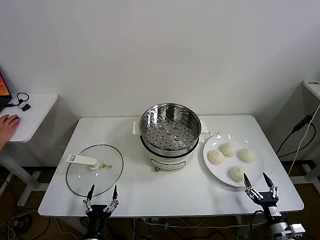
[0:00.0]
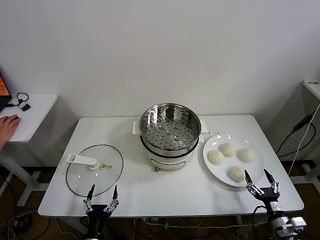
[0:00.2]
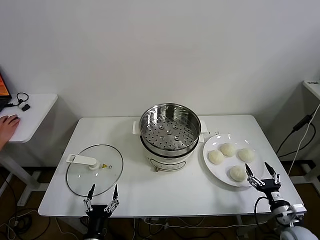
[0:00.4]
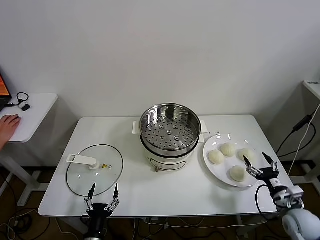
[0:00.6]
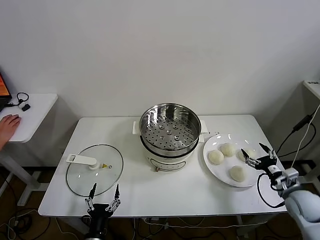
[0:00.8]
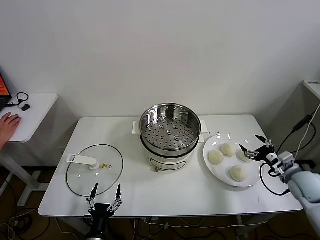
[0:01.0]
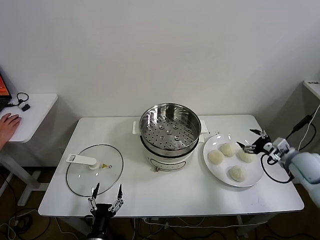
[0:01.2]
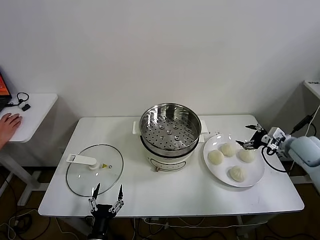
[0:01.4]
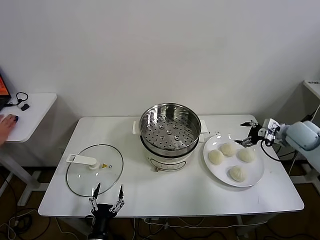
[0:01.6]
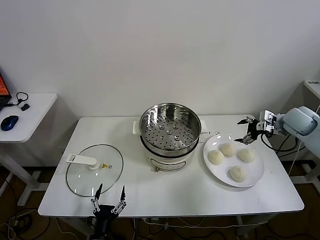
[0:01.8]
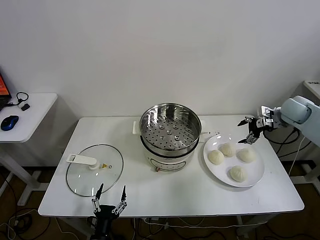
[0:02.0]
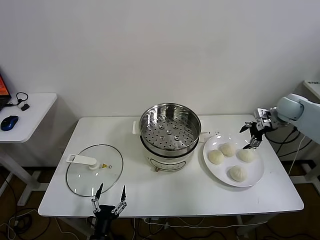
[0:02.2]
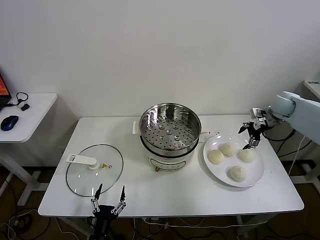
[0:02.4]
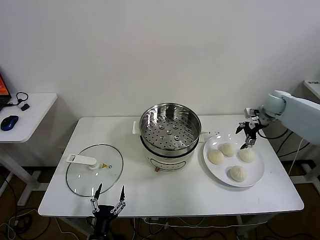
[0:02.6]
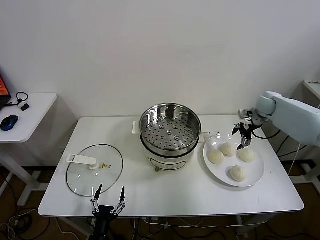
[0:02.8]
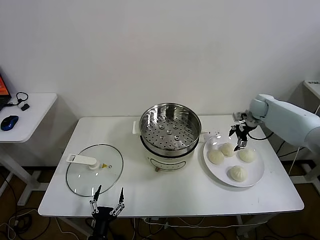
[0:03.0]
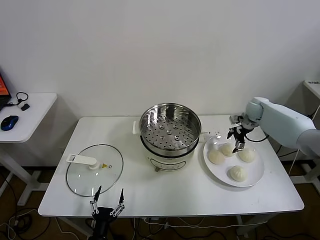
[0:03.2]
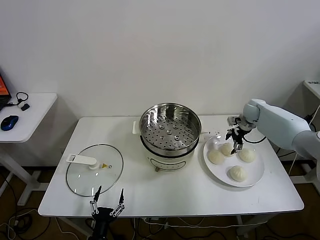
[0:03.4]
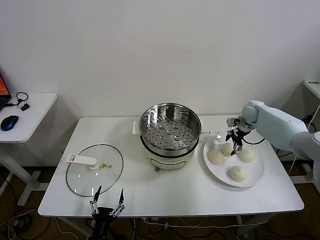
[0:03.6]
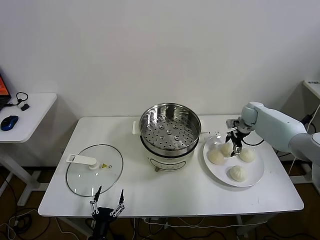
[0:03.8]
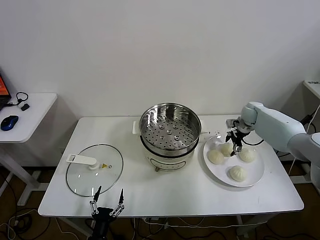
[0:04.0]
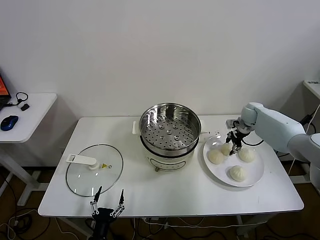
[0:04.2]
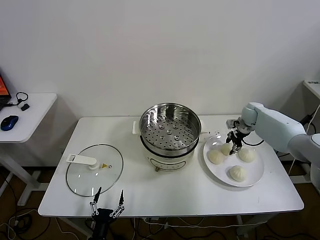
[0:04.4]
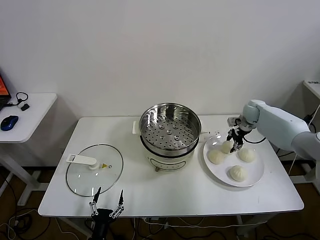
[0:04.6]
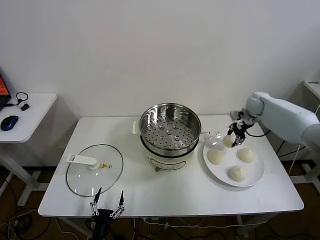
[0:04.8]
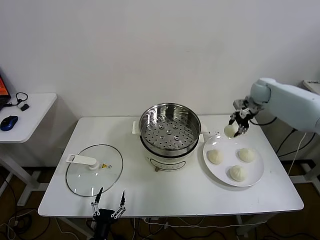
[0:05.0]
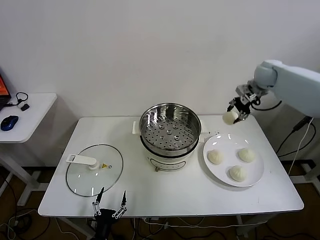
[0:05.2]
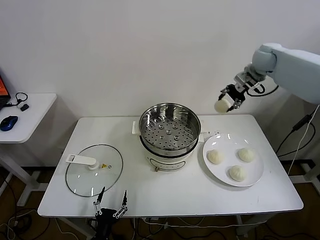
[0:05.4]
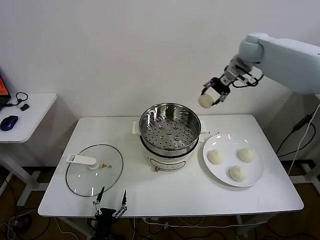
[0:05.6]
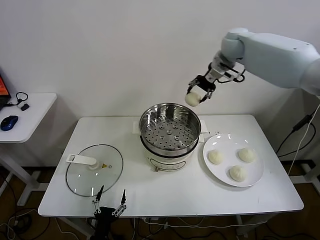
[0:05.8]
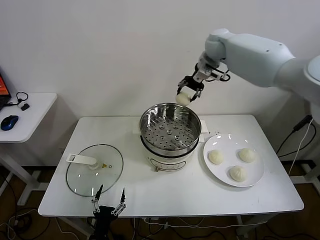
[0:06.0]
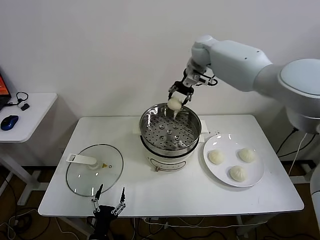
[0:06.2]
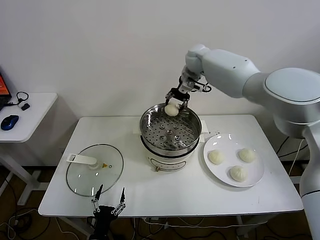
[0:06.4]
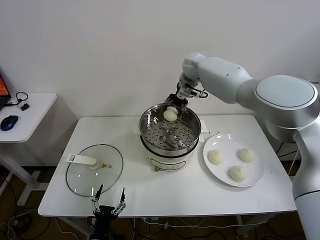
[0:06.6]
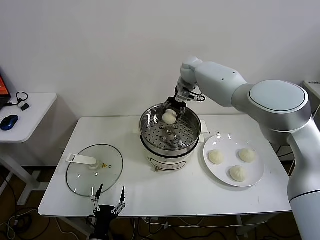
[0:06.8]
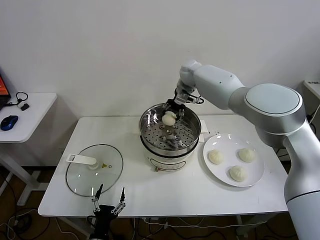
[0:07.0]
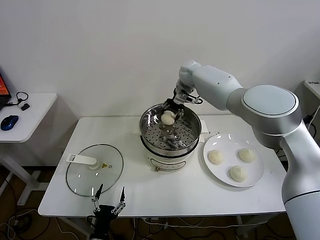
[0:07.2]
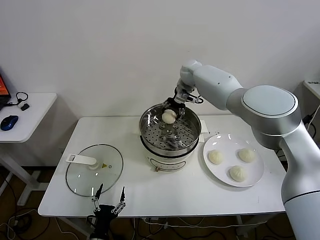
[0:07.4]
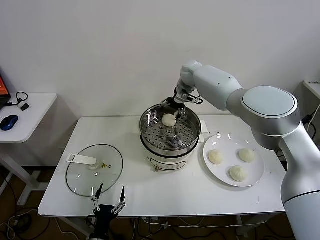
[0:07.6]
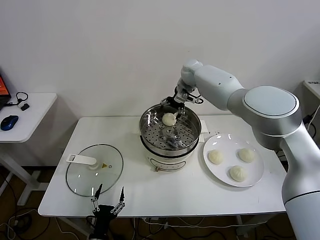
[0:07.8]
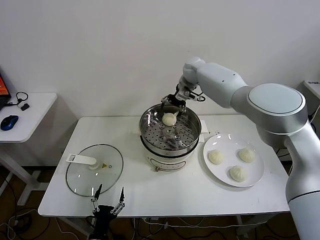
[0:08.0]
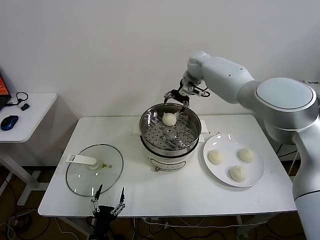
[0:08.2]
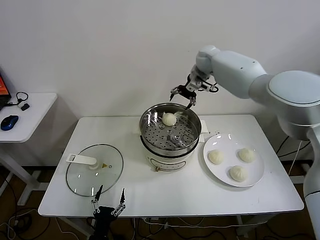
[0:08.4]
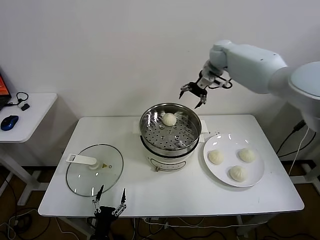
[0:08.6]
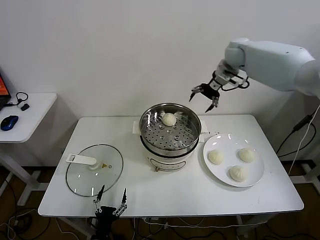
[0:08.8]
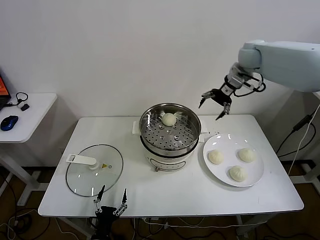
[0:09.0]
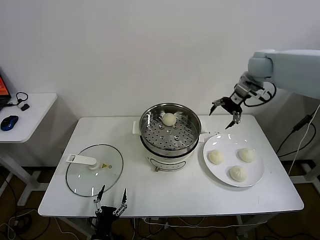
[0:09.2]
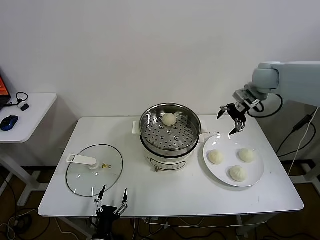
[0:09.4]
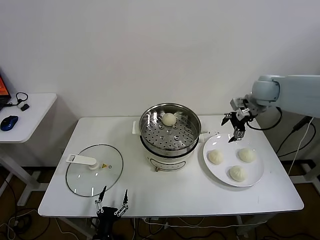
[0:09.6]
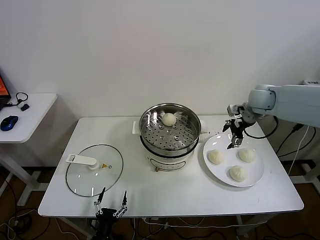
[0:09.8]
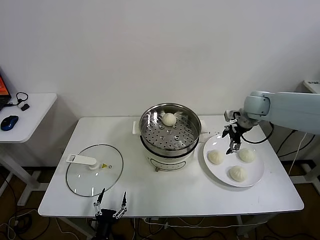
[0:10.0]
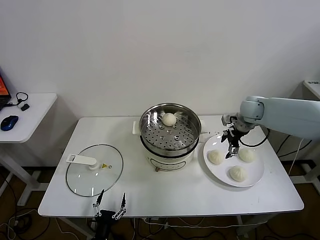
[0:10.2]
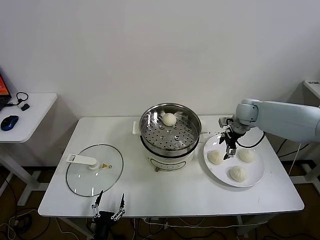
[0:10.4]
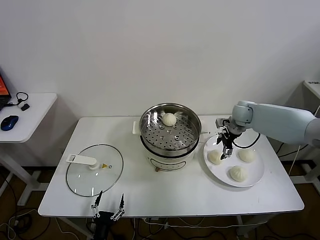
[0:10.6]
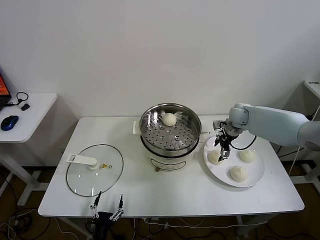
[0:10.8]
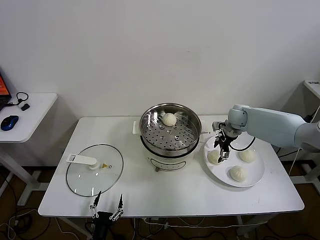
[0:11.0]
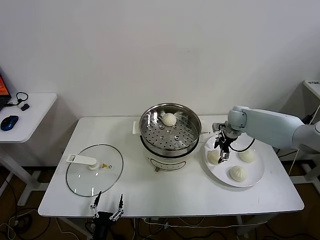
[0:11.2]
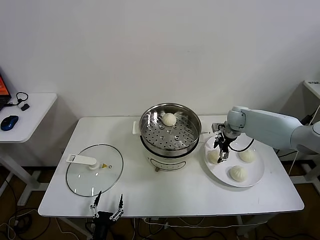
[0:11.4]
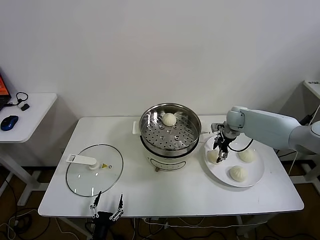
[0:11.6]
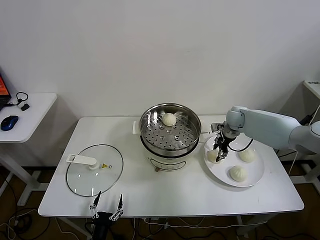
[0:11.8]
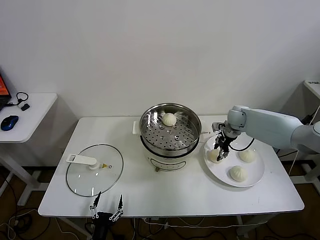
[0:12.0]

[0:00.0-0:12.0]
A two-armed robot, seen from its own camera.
Task of the whole recording: take steamed baozi put them in steamer.
Step, 0.0 to 4.4 s: Grasp the baozi in the plate with right gripper.
Step, 4.6 to 7.8 s: Place the baozi on the steamer with right gripper.
Step, 8.0 to 12.0 s: Grasp the baozi in the plate with right gripper.
1.6 to 3.0 s: The right gripper travels forward and to the left by approximately 15 cm.
3.0 to 4.4 s: The right gripper closes its fingers.
4.4 to 6.0 s: The right gripper moves upward and to the left, approximately 35 cm.
6.0 to 7.6 s: The right gripper travels downward by some 10 cm, and opens up.
7.6 to 9.0 s: The right gripper shifts some 20 cm to the right and upward.
9.0 to 10.4 s: The right gripper moves downward, about 20 cm.
10.4 to 12.0 s: The right gripper closes up.

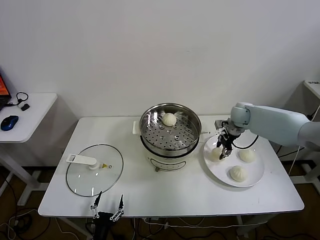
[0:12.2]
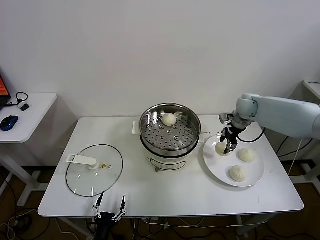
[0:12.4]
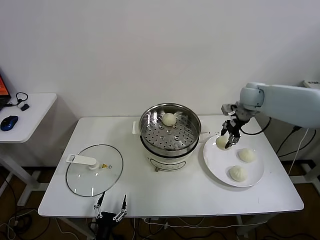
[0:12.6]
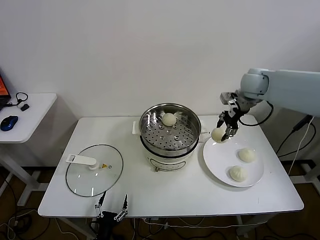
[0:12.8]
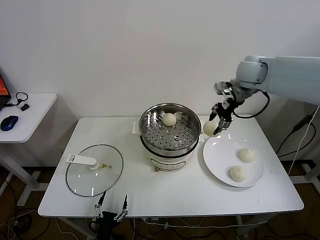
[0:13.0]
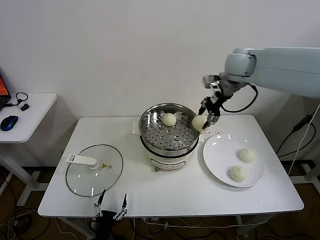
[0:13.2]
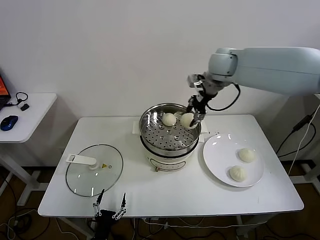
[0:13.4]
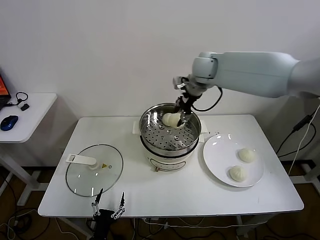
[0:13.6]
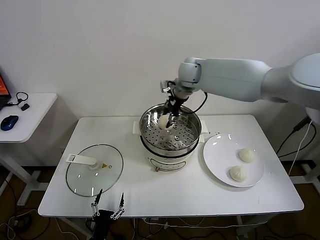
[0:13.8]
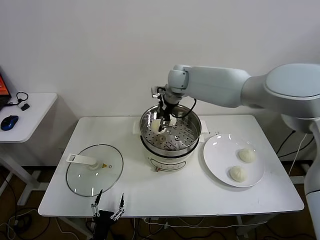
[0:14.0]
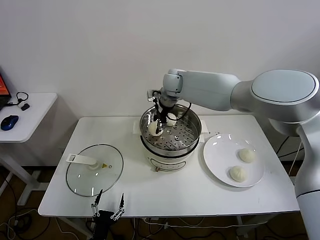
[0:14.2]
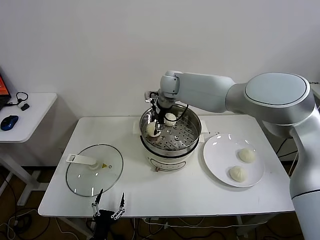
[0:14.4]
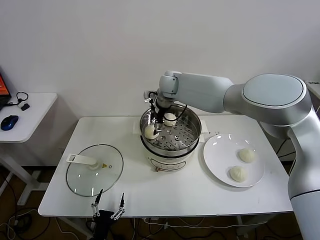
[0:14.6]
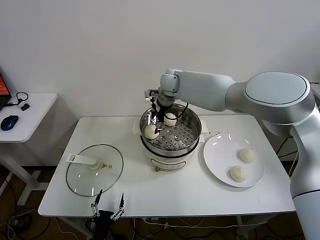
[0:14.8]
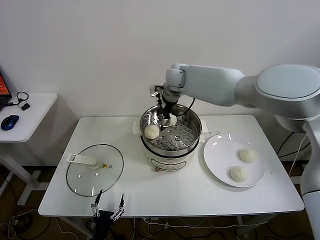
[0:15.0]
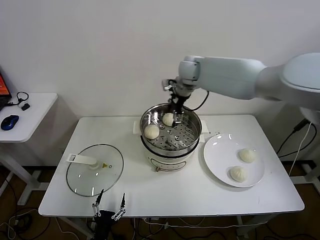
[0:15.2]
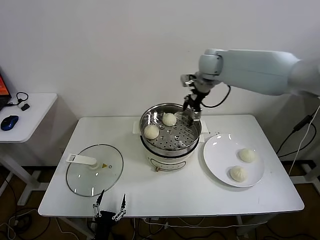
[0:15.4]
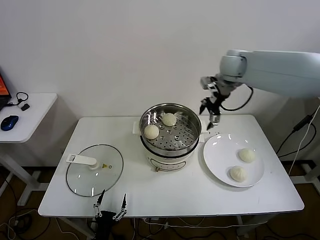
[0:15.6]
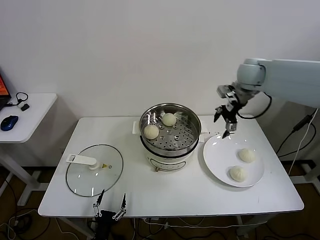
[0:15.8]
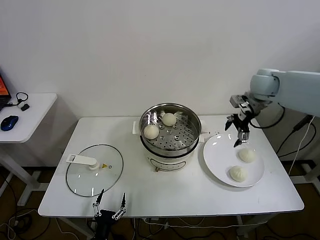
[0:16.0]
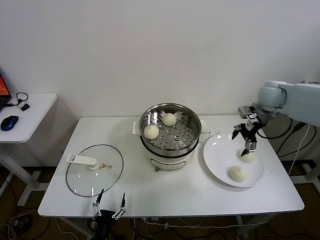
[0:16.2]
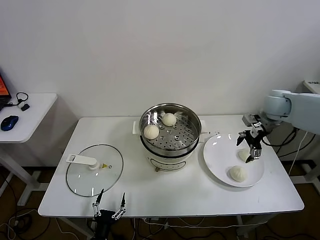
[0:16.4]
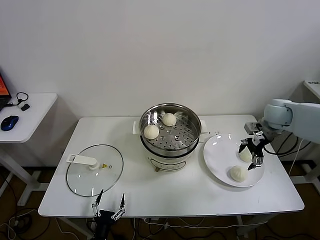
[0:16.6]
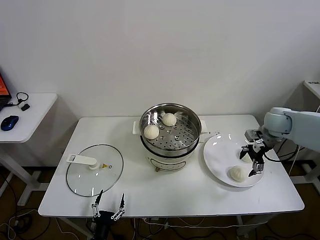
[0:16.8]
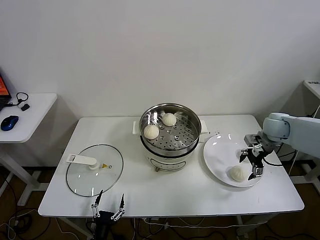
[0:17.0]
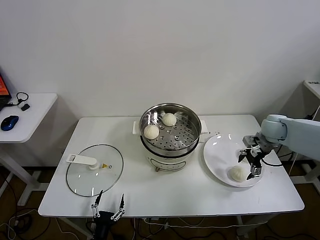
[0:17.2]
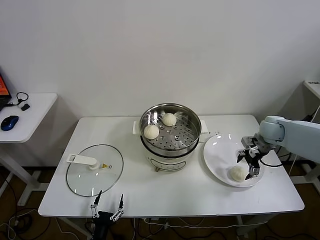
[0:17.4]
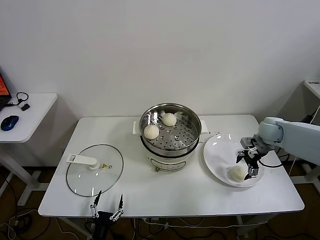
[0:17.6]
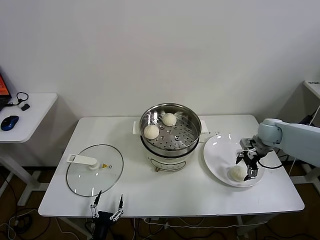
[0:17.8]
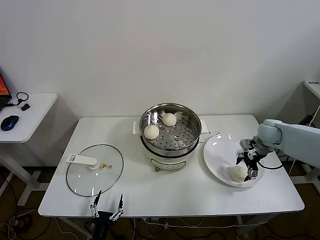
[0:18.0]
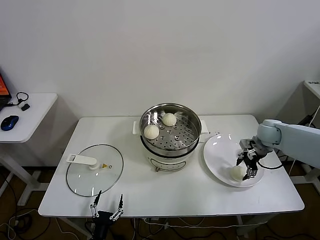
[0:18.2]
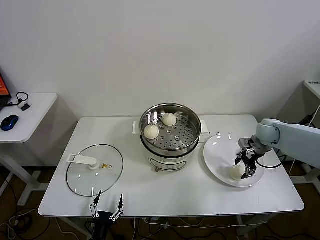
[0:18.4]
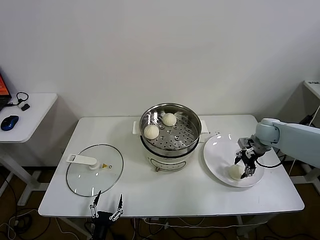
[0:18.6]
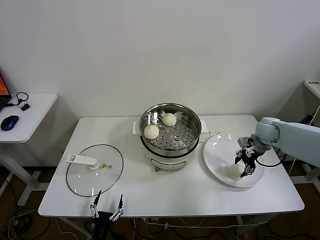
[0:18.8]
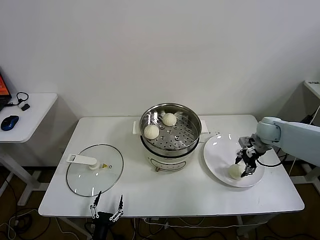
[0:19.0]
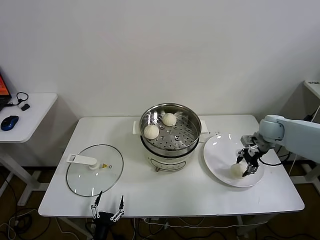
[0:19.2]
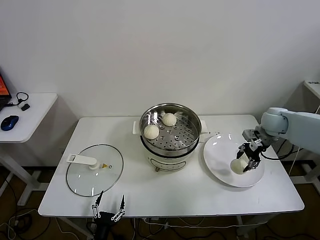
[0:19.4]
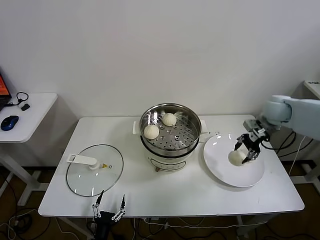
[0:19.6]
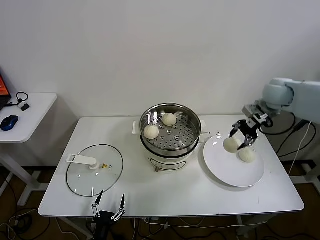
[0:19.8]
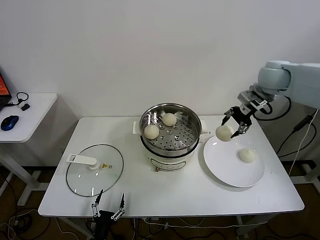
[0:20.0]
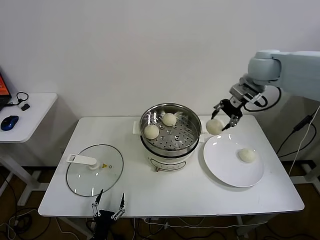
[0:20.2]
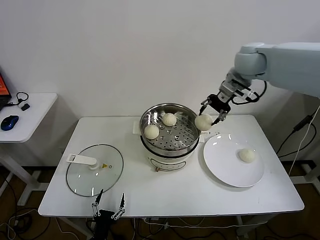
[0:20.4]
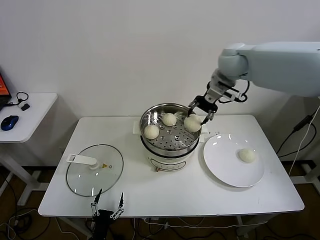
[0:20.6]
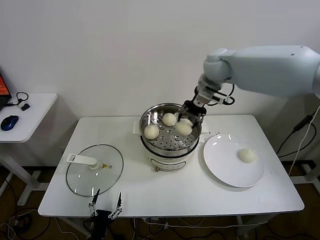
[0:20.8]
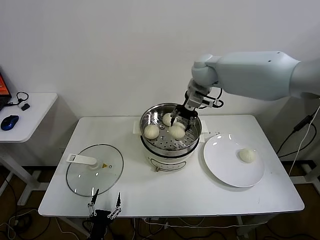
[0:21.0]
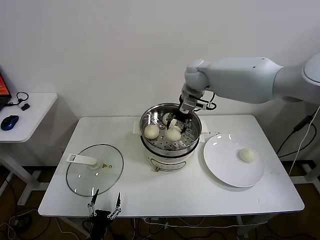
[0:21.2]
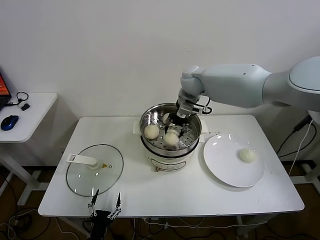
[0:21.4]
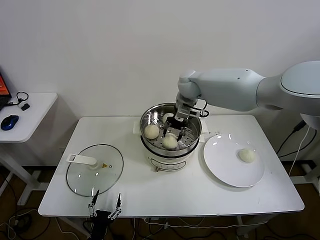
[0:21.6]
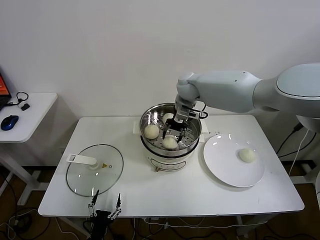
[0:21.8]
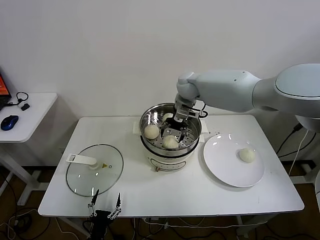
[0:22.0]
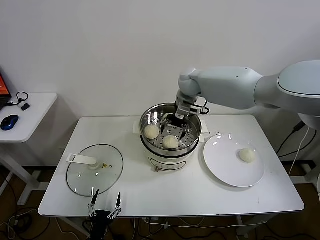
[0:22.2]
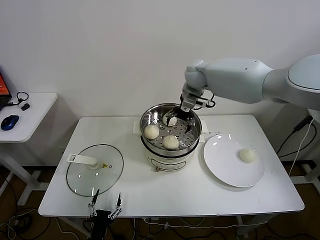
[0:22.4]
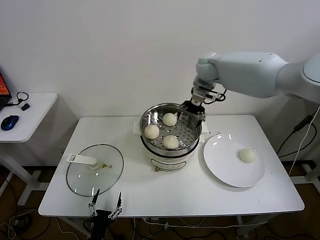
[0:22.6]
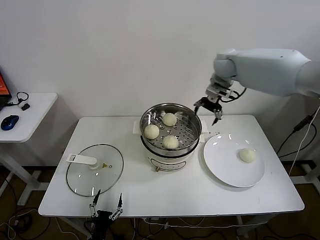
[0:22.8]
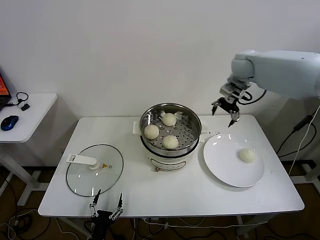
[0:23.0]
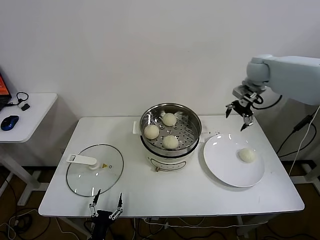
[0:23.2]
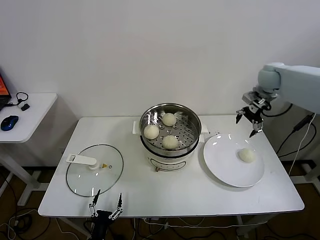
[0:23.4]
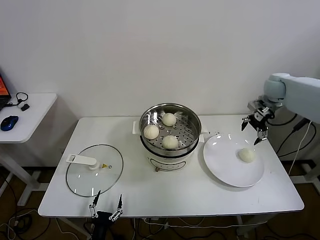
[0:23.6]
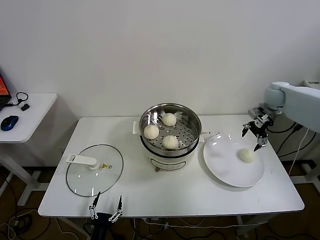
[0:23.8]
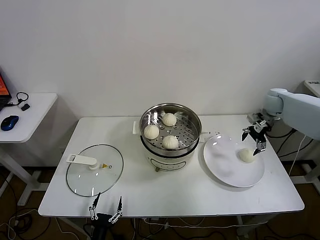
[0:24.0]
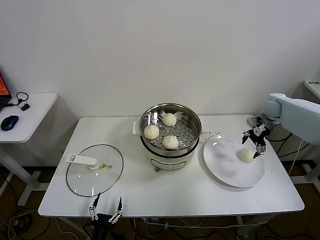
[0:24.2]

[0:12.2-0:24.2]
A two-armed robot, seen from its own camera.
Task of the whole recording: take steamed baozi put them in steamer.
Step, 12.2 to 14.6 s: Place the baozi on the steamer with right gripper.
Step, 14.8 to 18.4 s: Grasp the baozi in the plate with right gripper.
Step, 18.6 to 22.0 s: Place the baozi on the steamer with right gripper.
12.2 to 13.8 s: The right gripper goes about 30 cm to the left and upward.
13.8 to 15.2 s: The right gripper goes to the left and returns, roughly 5 cm each way, and opens up.
15.2 to 16.6 s: The right gripper is displaced to the right, backward and downward by approximately 35 cm.
16.6 to 18.2 s: The right gripper goes approximately 10 cm downward, and closes.
18.2 to 19.8 s: The right gripper heads upward, covering approximately 15 cm, and closes its fingers.
19.8 to 21.2 s: The right gripper travels to the left by about 25 cm.
21.2 to 22.6 s: The right gripper shifts by some 5 cm, and opens its fingers.
22.6 to 24.2 s: The right gripper heads to the right and downward, covering about 30 cm.
